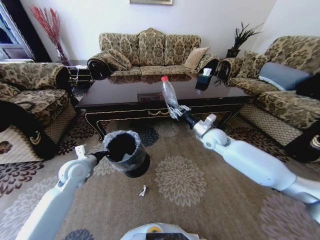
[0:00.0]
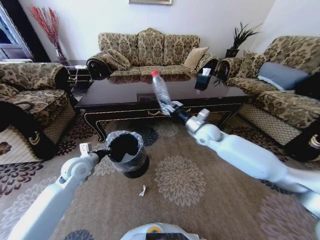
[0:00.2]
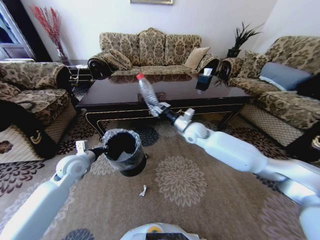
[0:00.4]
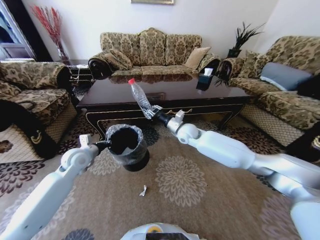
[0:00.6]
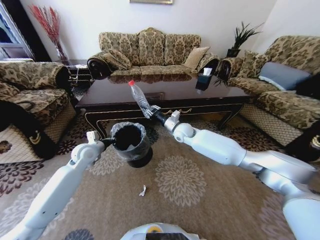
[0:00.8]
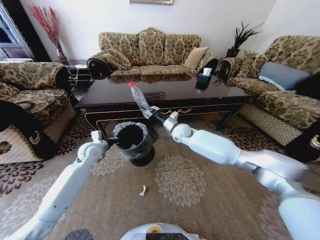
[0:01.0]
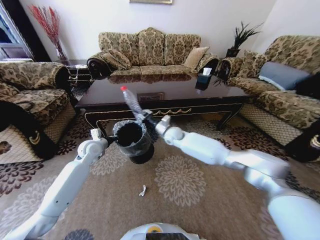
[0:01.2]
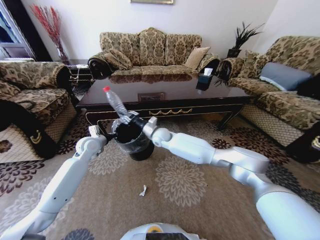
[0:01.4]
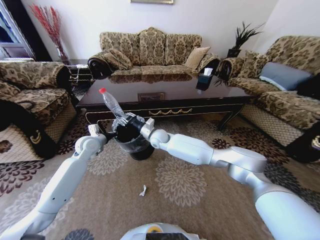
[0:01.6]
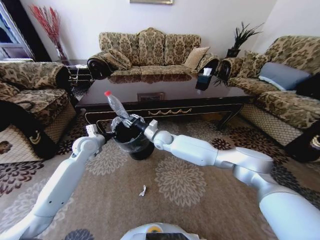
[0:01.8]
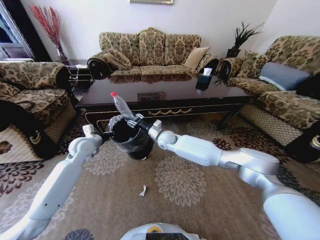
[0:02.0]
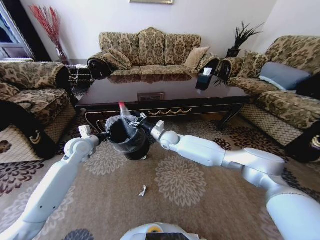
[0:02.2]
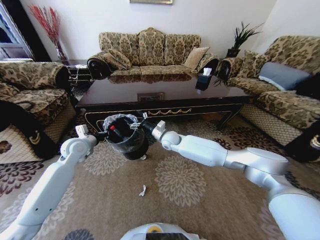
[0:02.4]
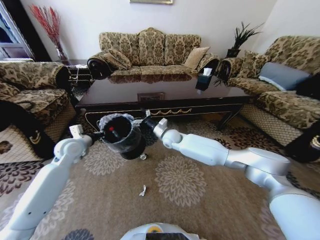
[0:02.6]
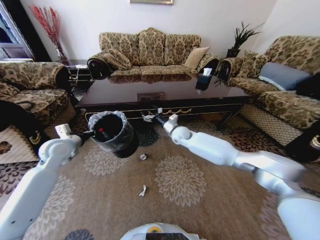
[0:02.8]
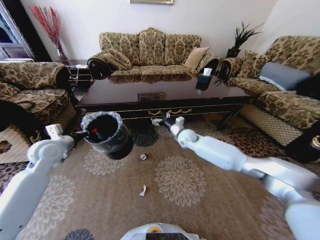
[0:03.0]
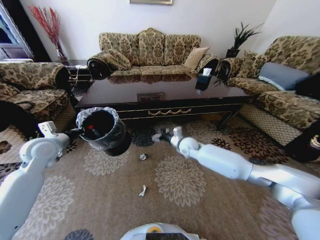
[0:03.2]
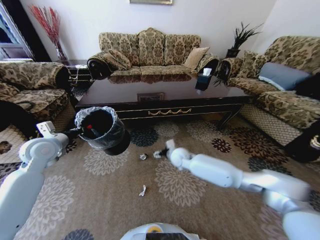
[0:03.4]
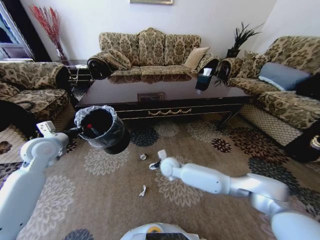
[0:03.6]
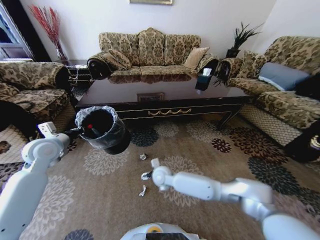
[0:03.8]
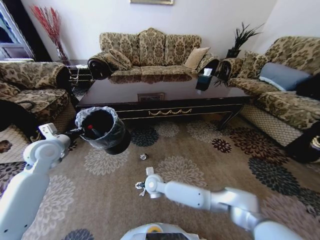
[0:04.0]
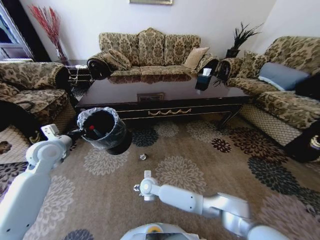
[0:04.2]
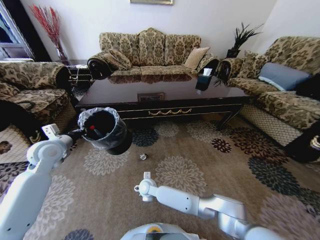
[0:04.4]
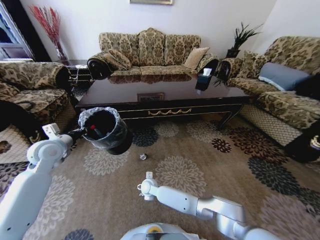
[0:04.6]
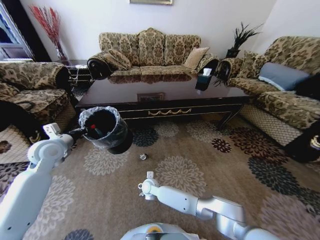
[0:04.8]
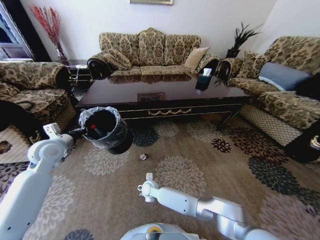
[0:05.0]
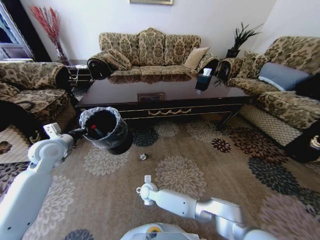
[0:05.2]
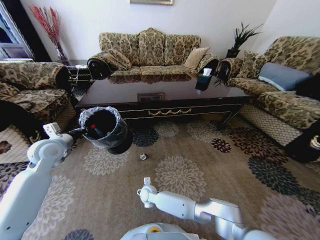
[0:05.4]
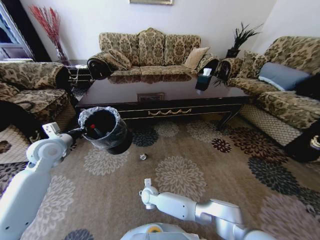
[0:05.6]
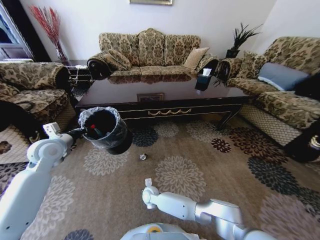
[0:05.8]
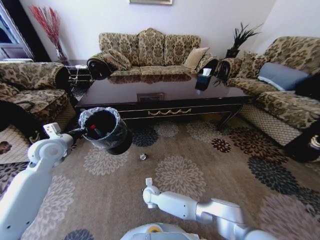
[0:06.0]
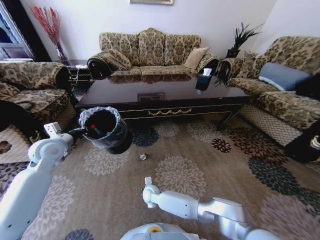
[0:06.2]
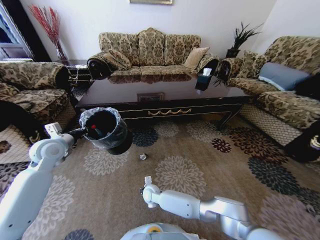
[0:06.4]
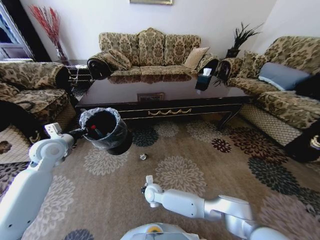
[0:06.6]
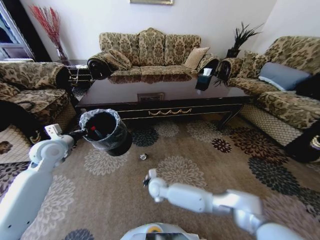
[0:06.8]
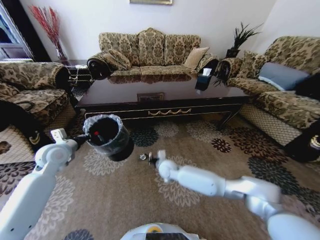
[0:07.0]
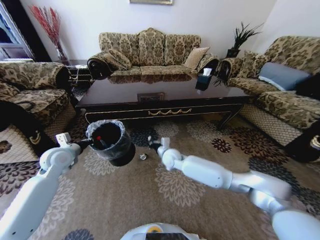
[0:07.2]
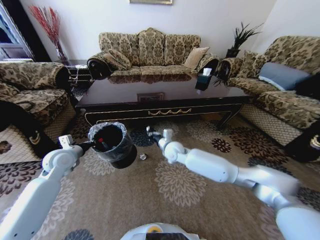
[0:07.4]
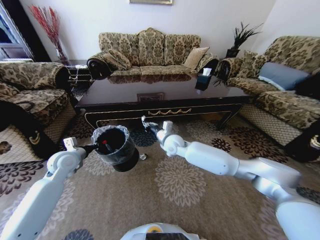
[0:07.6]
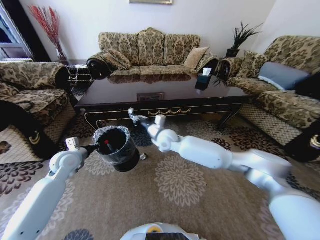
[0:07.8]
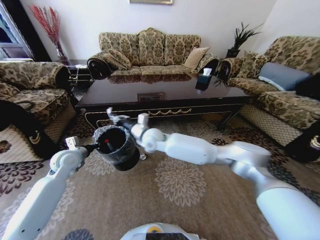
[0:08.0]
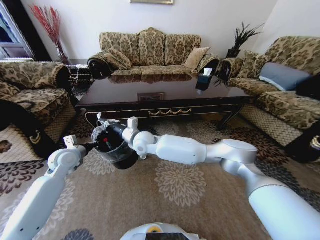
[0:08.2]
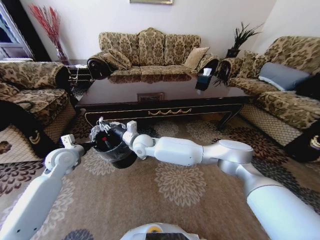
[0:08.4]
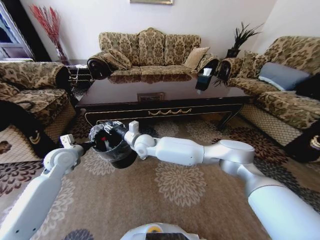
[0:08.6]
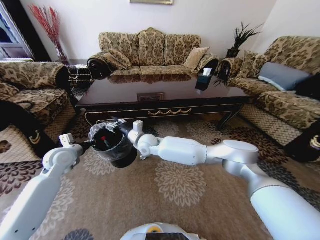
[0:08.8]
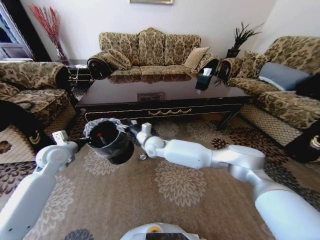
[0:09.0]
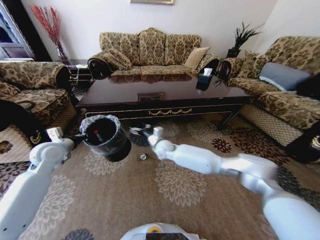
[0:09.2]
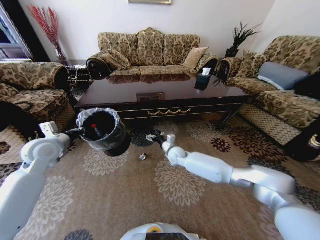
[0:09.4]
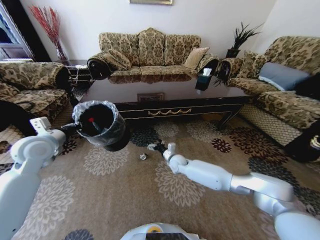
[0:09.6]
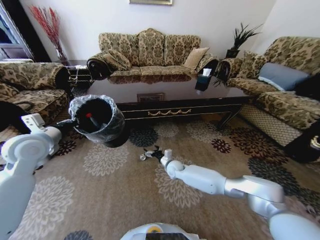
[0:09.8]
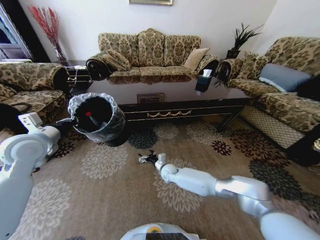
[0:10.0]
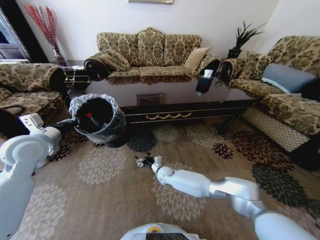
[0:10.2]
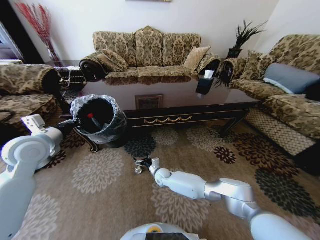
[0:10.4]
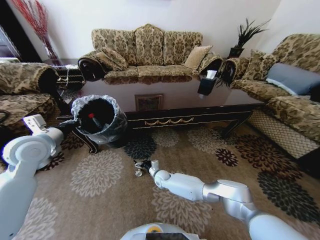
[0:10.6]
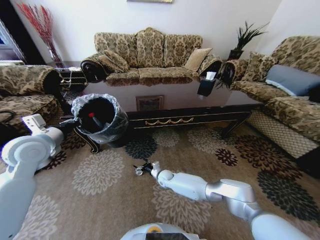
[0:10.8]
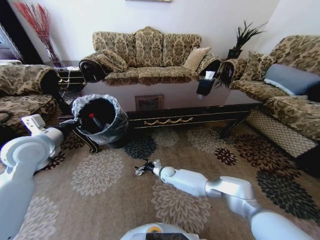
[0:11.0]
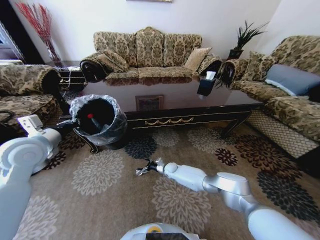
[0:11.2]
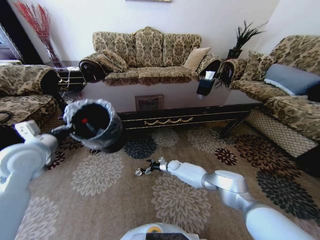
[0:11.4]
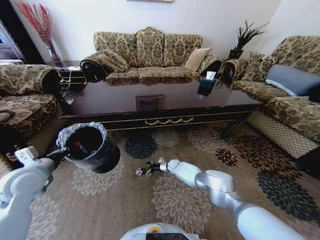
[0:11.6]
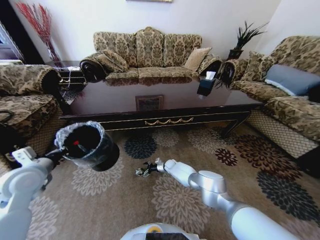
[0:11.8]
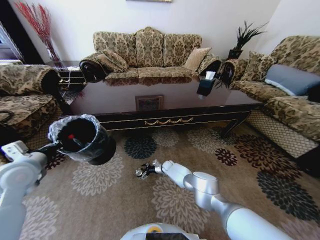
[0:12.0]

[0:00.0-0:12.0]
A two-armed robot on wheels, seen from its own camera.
Task of the whole recording: Move to the front of the table and pick up the trash from the floor, then place it into the trash bin.
0:00.0 to 0:01.6: The right gripper moves to the left, some 25 cm, while the left gripper goes about 10 cm forward.
0:01.6 to 0:03.0: The left gripper moves to the left, backward and upward, some 15 cm, while the right gripper moves to the right, roughly 15 cm, and opens up.
0:03.0 to 0:04.4: The right gripper goes roughly 35 cm to the left, downward and backward.
0:04.4 to 0:06.0: The right gripper heads downward, covering about 5 cm, and closes up.
0:06.0 to 0:07.6: The right gripper heads upward and forward, covering some 30 cm. The left gripper travels downward by about 5 cm.
0:07.6 to 0:09.0: The right gripper heads to the left, covering roughly 10 cm, and opens up.
0:09.0 to 0:10.4: The right gripper is displaced downward by approximately 25 cm; the left gripper is displaced upward by about 10 cm.
0:10.4 to 0:12.0: The right gripper heads forward, downward and to the right, covering roughly 15 cm. The left gripper travels backward and downward by some 10 cm.

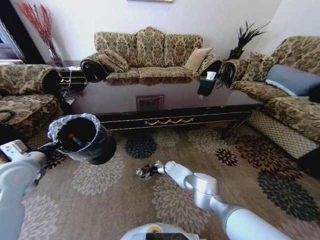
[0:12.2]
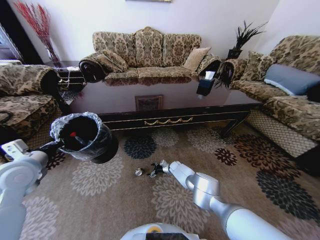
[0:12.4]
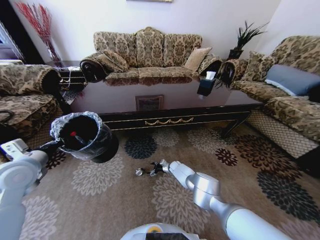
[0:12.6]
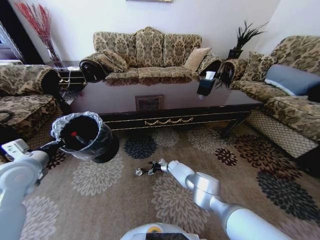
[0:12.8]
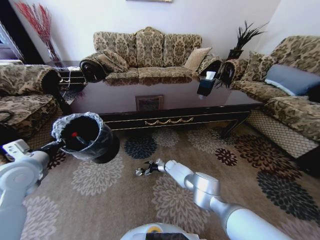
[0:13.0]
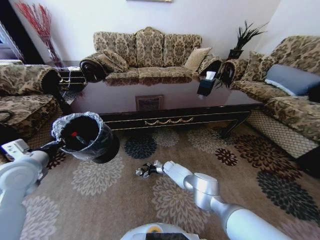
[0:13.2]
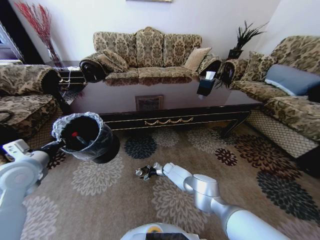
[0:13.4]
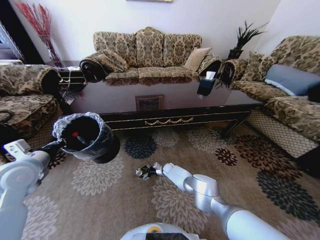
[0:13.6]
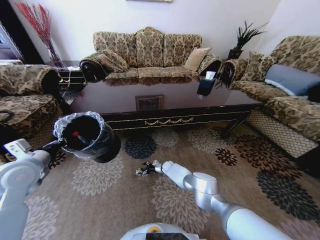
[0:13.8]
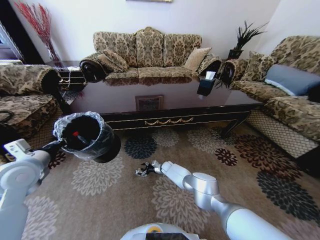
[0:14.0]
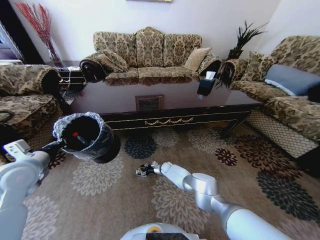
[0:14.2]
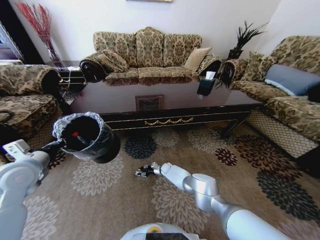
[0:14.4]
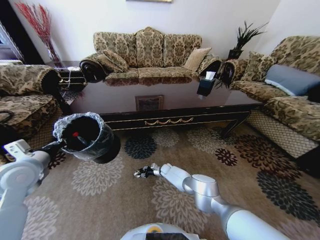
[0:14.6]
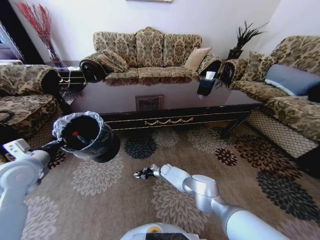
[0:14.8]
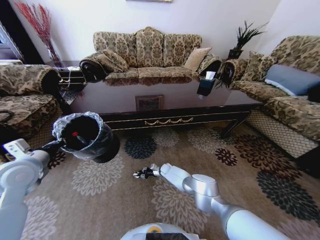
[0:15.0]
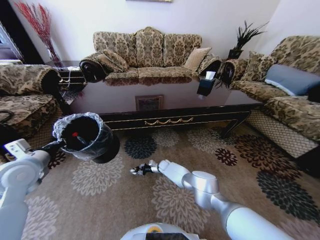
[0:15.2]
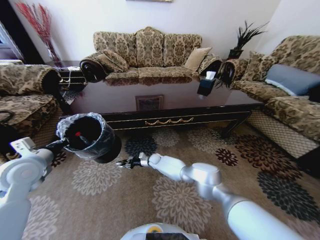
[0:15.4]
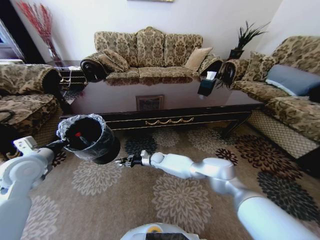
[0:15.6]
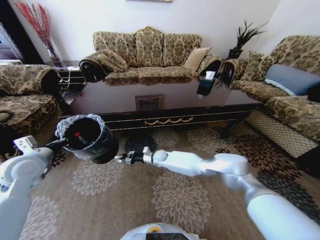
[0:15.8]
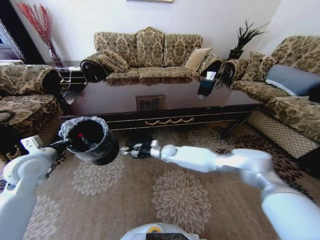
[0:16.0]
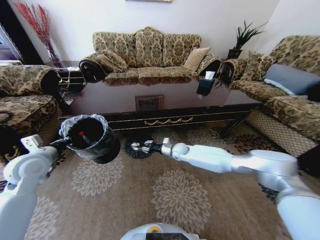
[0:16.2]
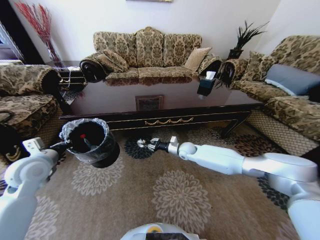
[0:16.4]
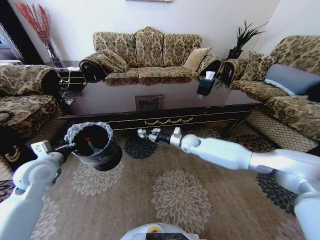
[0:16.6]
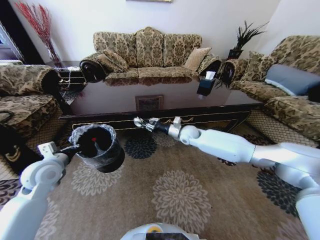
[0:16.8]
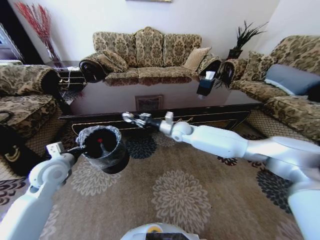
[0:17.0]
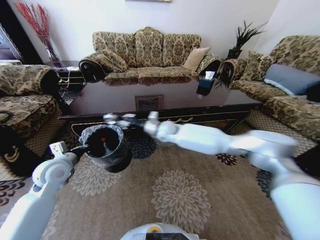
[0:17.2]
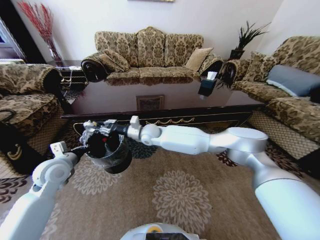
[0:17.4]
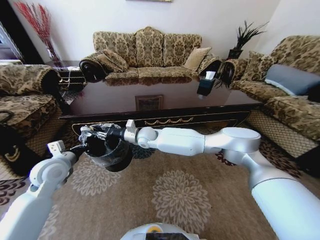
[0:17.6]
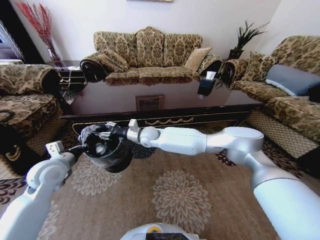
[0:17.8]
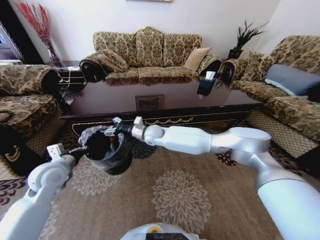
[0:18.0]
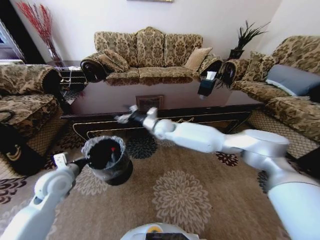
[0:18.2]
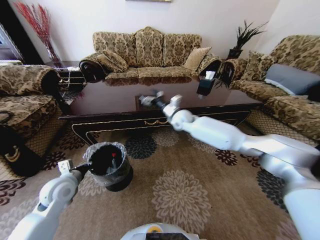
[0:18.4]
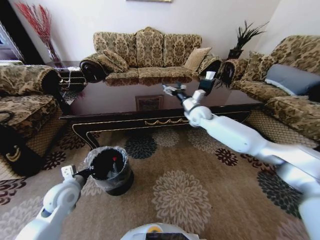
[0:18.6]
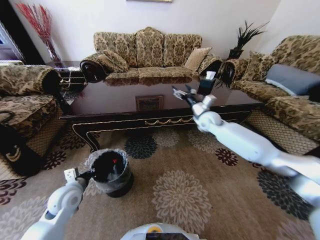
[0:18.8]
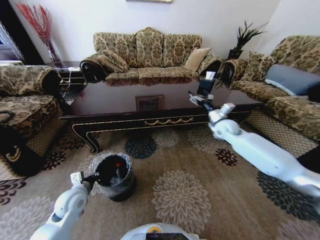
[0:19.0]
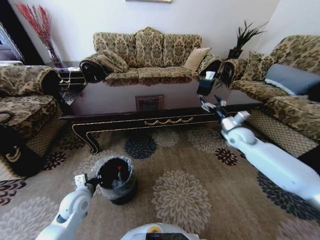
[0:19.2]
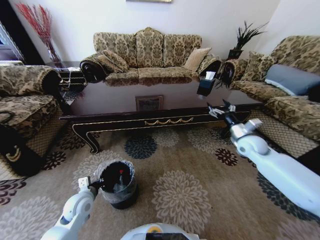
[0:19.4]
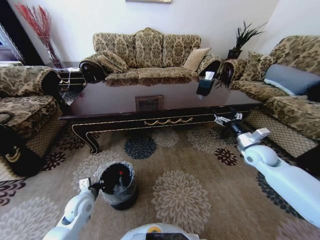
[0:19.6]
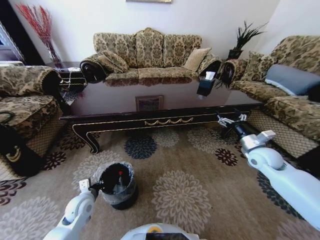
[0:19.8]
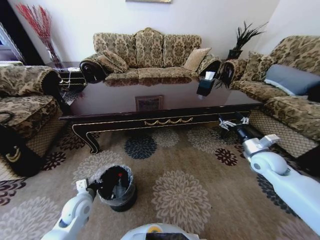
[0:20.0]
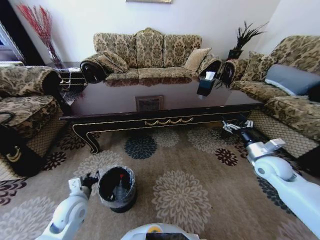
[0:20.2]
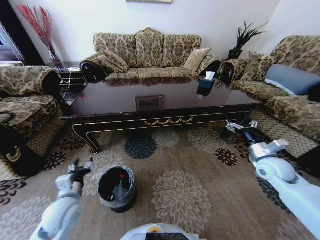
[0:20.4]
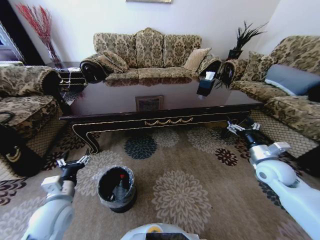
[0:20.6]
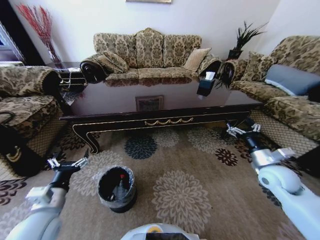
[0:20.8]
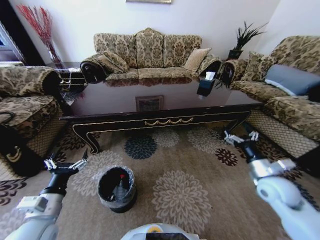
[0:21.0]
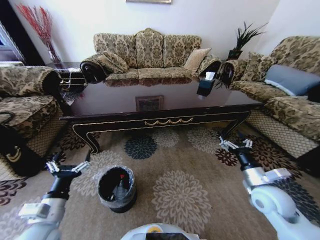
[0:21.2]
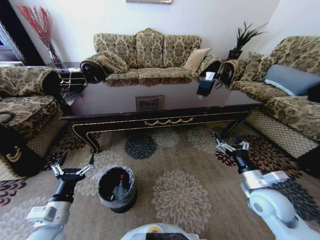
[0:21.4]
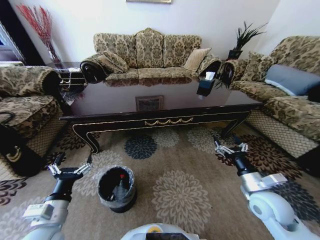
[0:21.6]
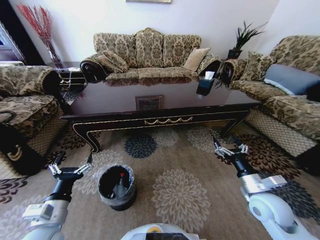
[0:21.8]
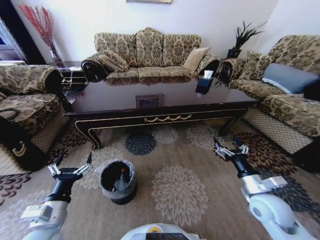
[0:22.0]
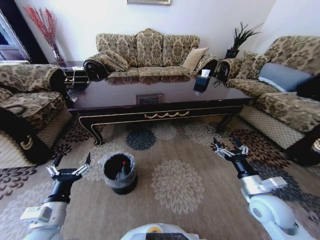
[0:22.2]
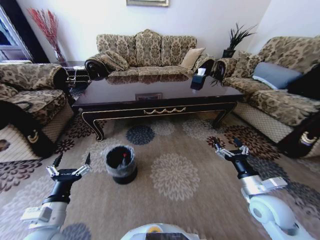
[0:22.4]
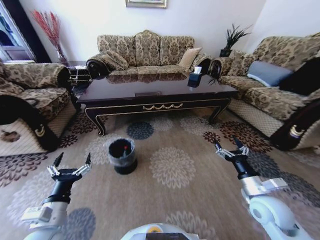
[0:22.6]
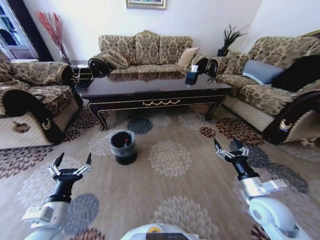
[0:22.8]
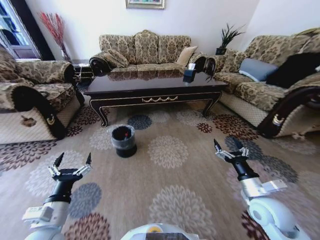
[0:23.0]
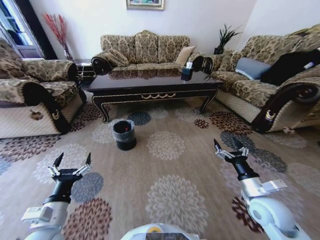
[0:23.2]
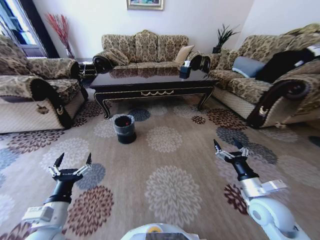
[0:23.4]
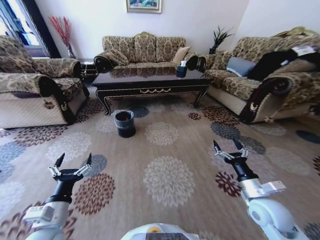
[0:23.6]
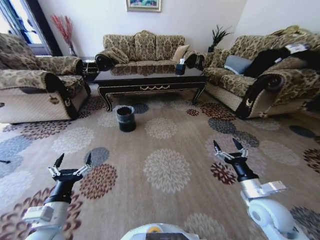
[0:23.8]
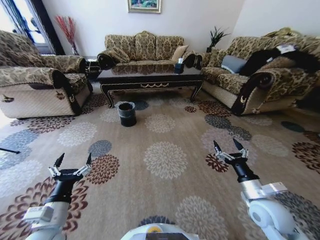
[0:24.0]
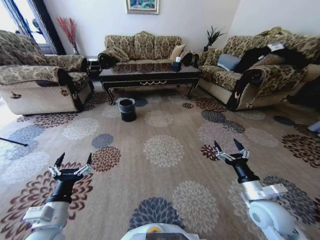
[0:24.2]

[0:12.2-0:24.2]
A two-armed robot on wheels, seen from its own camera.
Task of the whole recording: Move to the front of the table and pick up the trash from the floor, then place it into the trash bin.
0:12.2 to 0:13.8: There are only small adjustments of the grippers.
0:13.8 to 0:15.2: The right gripper closes.
0:15.2 to 0:16.6: The right gripper goes about 30 cm upward and to the right.
0:16.6 to 0:18.2: The right gripper moves to the left and upward, some 20 cm, and opens up, while the left gripper changes place by some 5 cm.
0:18.2 to 0:19.8: The left gripper is displaced downward and to the right by approximately 15 cm, while the right gripper heads to the right, covering approximately 40 cm.
0:19.8 to 0:21.2: The right gripper is displaced backward and to the left by some 15 cm. The left gripper travels upward and backward by approximately 15 cm, and opens its fingers.
